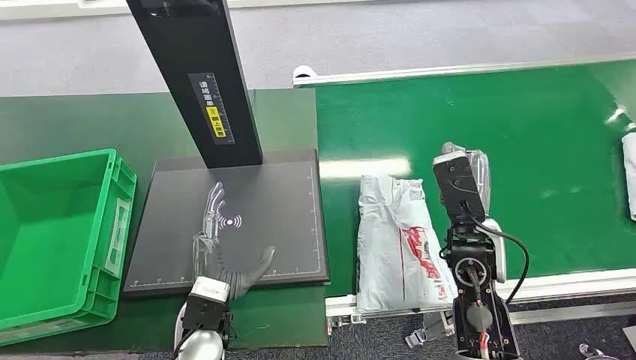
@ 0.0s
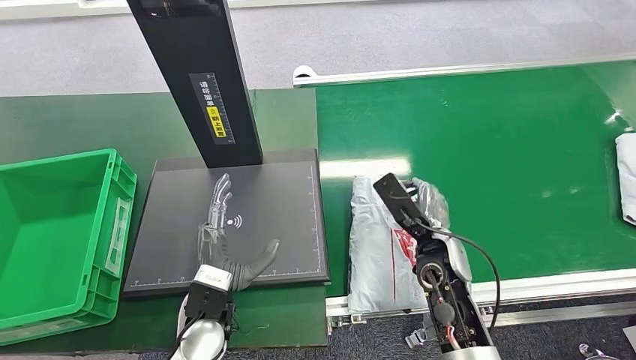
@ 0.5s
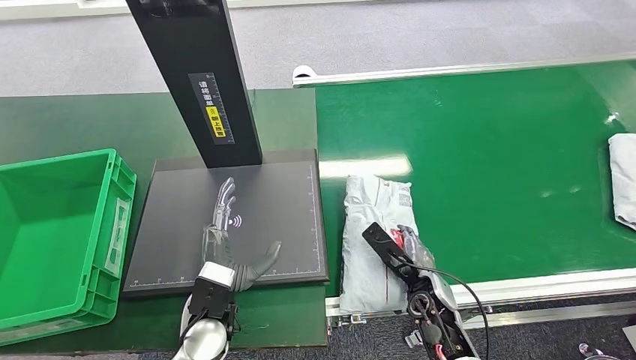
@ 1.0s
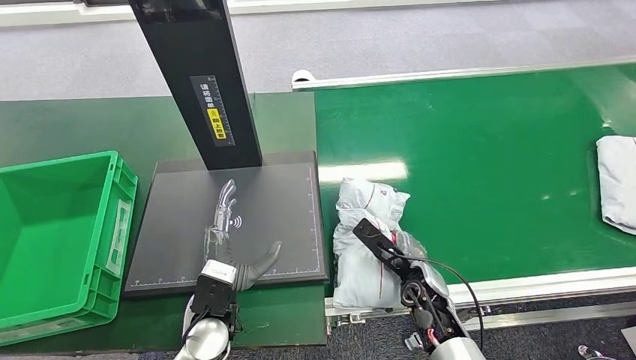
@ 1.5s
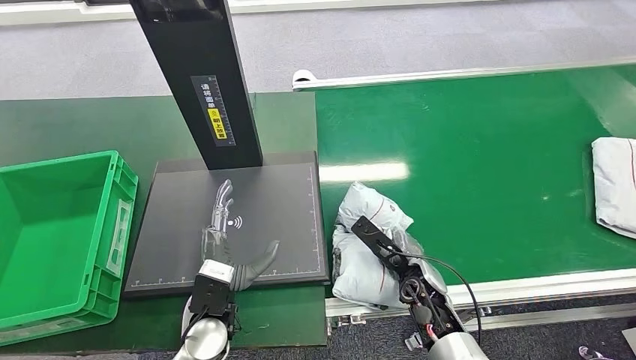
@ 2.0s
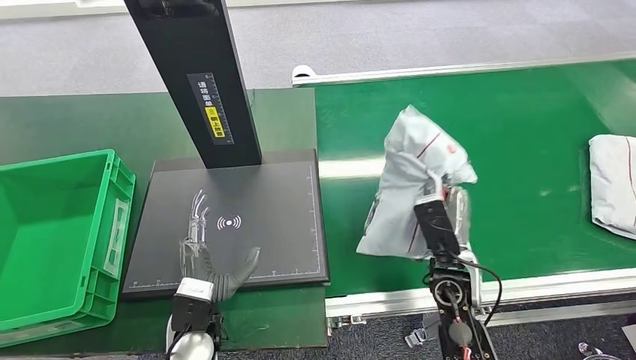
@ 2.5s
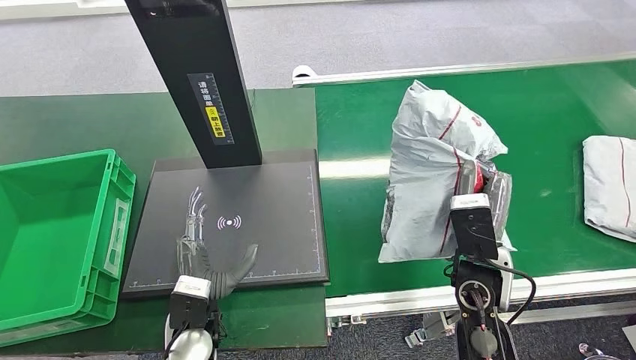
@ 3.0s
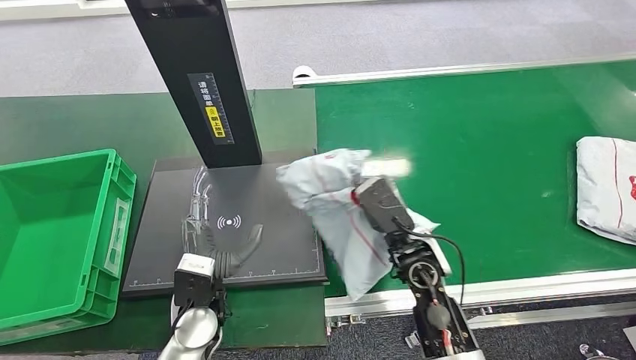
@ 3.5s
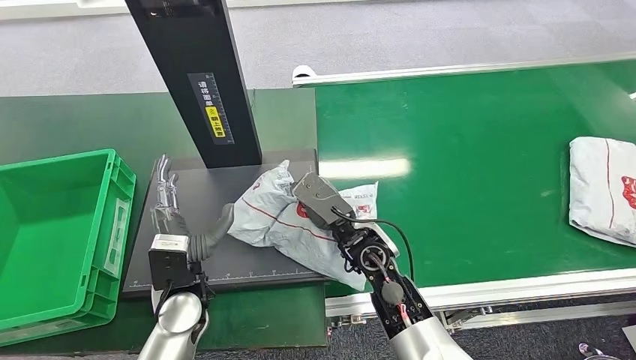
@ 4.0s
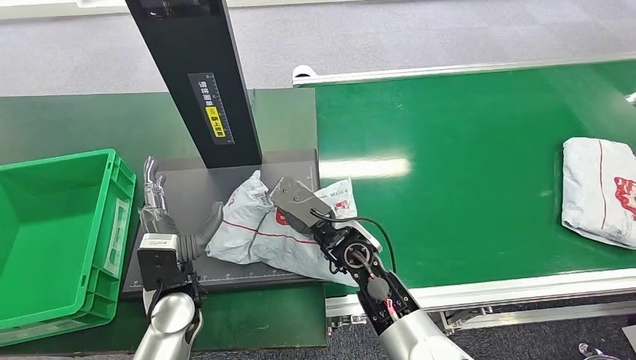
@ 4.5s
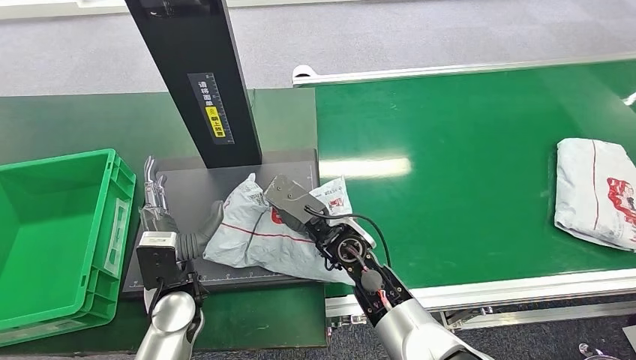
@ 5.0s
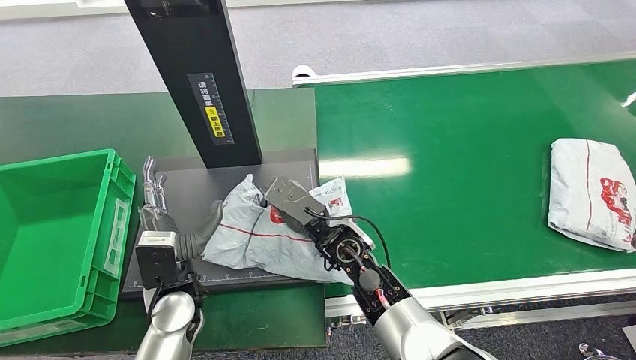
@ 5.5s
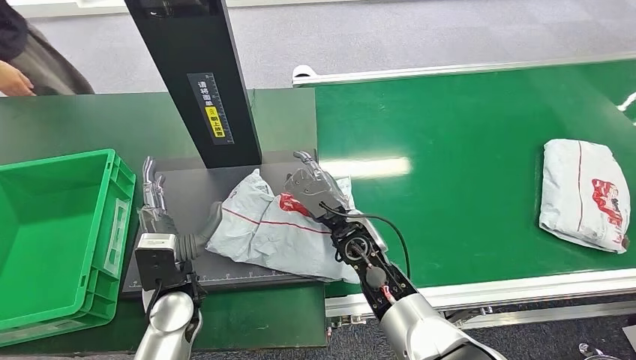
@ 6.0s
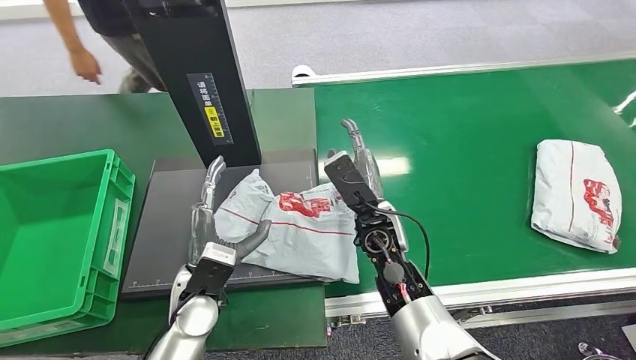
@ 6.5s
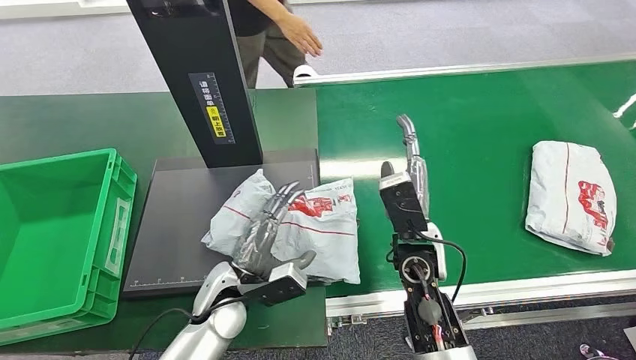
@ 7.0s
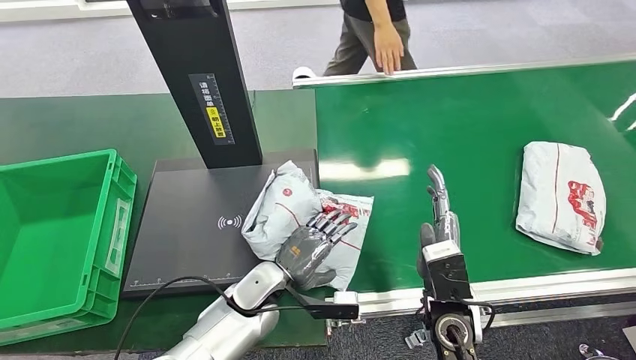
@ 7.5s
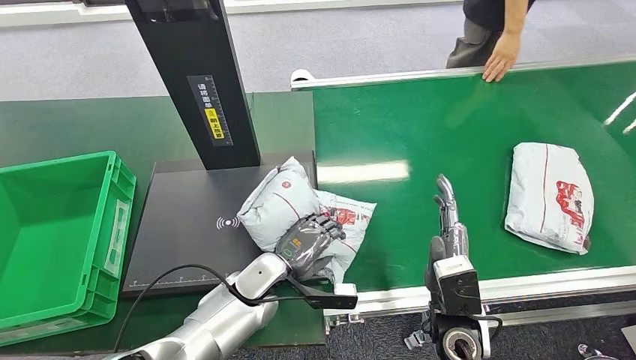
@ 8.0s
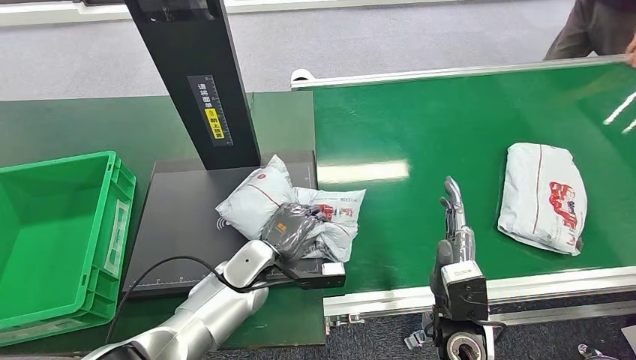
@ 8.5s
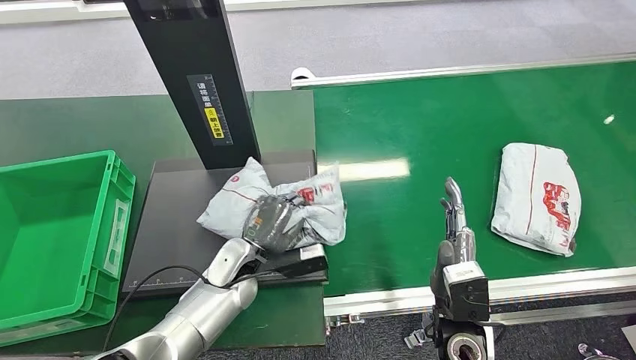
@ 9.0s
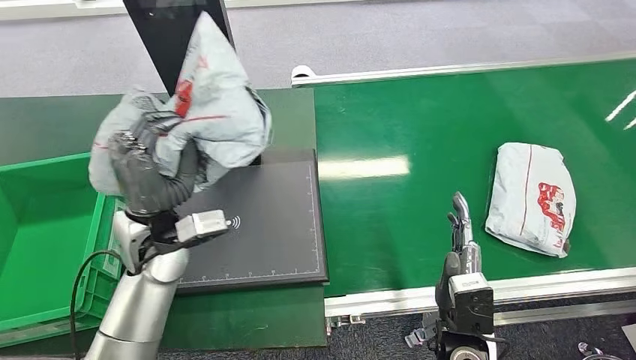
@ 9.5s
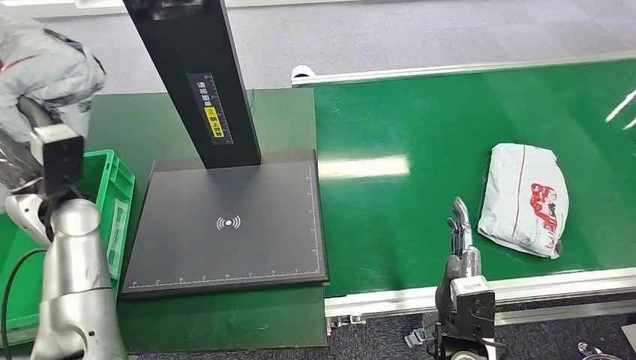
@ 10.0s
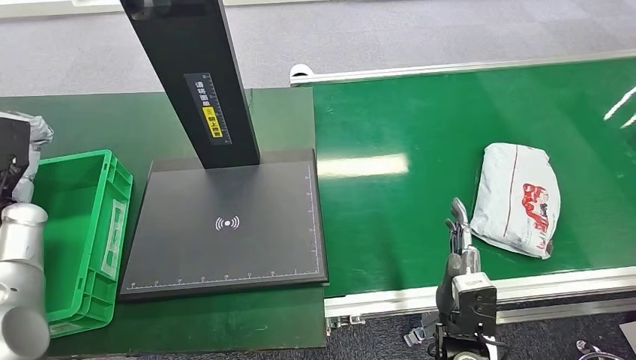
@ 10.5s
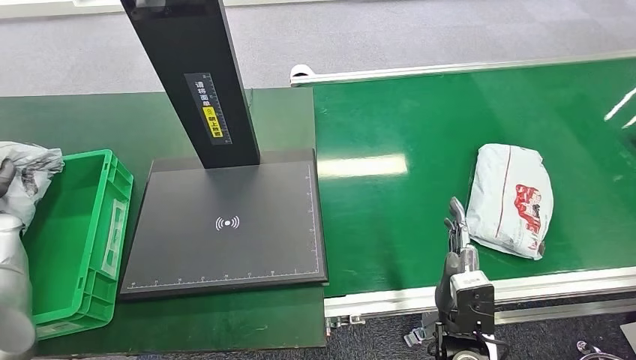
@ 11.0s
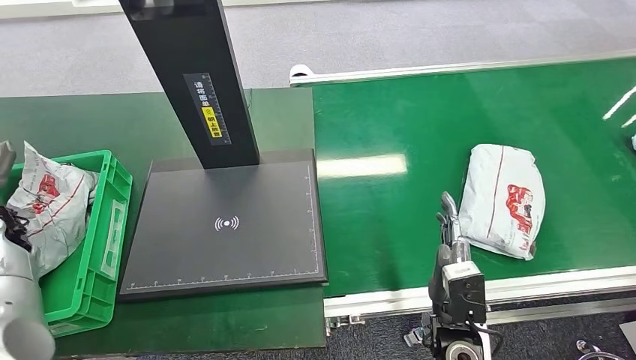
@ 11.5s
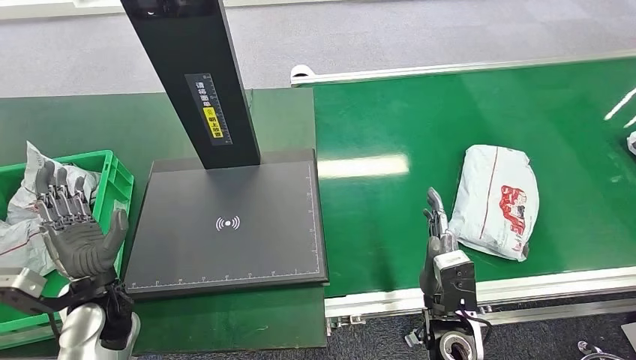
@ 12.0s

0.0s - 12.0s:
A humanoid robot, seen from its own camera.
Task of the whole recording: Weigh the package on the weighing device and place it in the left basket.
Step, 0.0s - 2.5s: Pick up the package from the conveyor belt.
Step, 3.0s - 6.5s: Place the package onto the inbound machine.
Step, 7.0s - 9.5s: Pick up the package from the inbound machine.
Step, 10.0s - 12.0s: Place the package into the parcel locker.
4.0s - 6.0s: There are only small adjustments of the hands.
